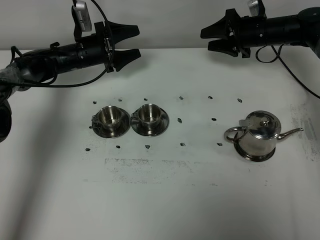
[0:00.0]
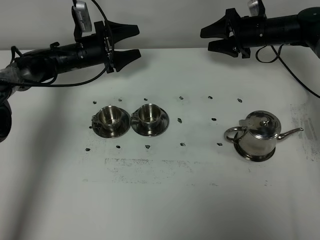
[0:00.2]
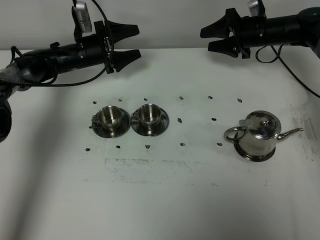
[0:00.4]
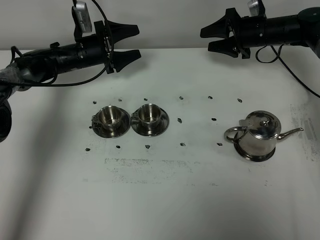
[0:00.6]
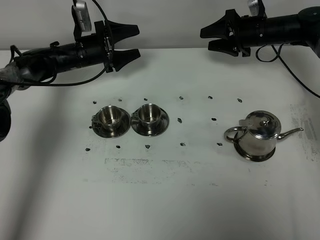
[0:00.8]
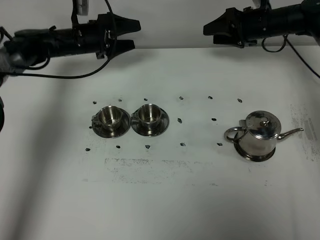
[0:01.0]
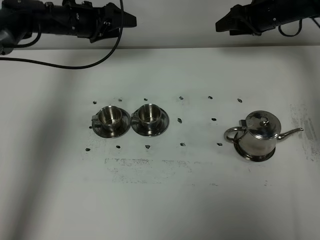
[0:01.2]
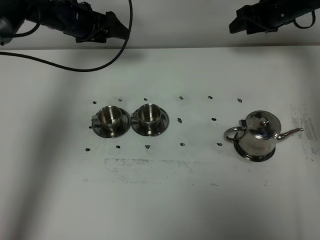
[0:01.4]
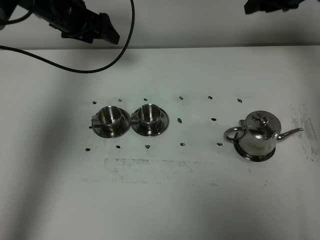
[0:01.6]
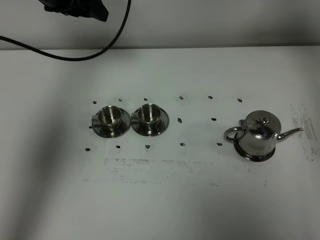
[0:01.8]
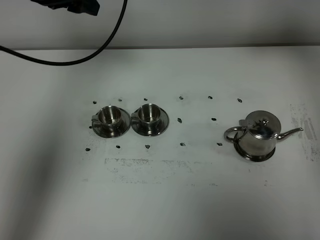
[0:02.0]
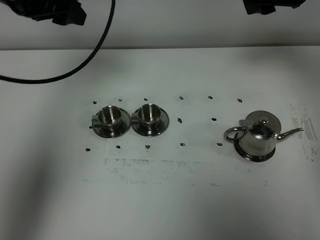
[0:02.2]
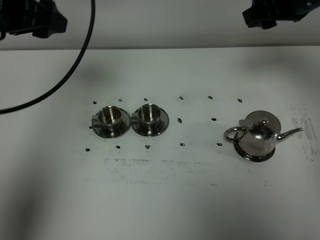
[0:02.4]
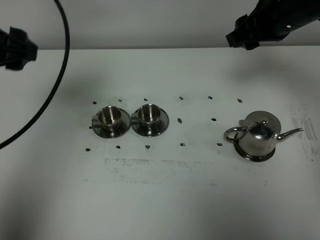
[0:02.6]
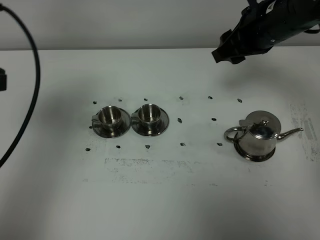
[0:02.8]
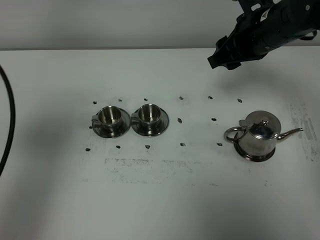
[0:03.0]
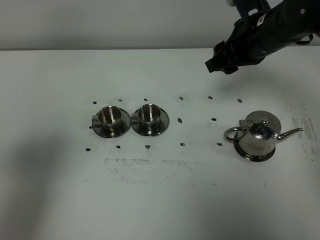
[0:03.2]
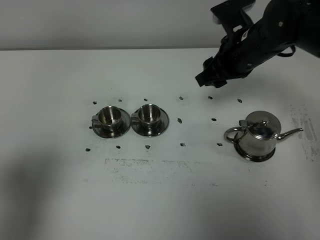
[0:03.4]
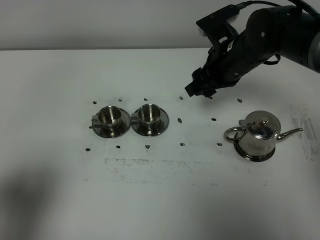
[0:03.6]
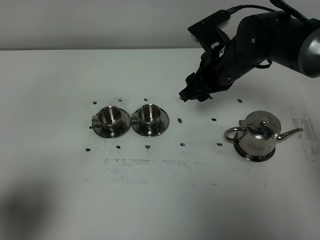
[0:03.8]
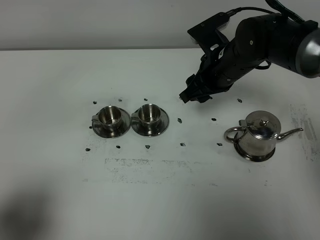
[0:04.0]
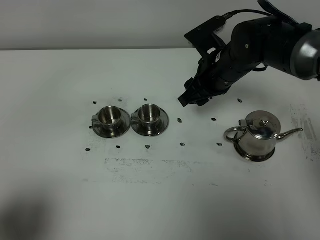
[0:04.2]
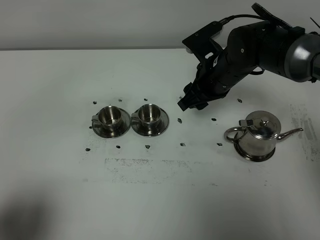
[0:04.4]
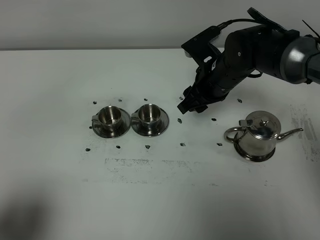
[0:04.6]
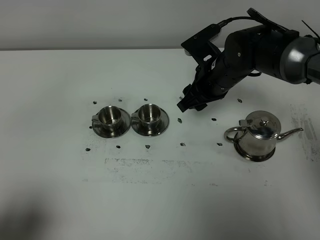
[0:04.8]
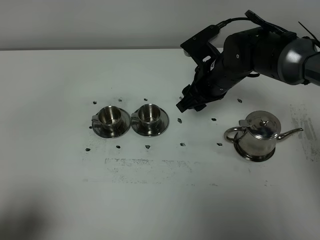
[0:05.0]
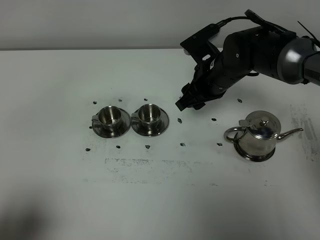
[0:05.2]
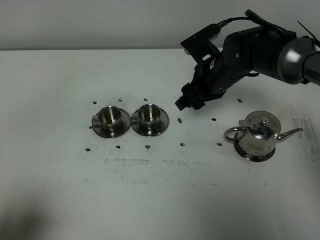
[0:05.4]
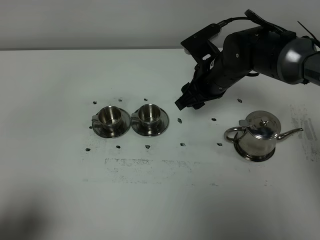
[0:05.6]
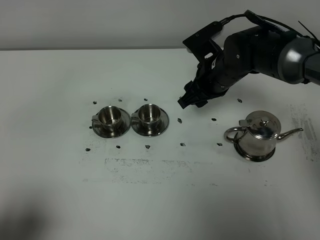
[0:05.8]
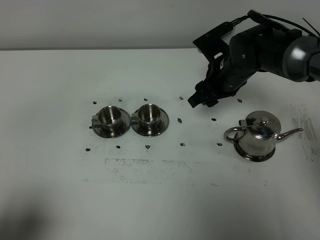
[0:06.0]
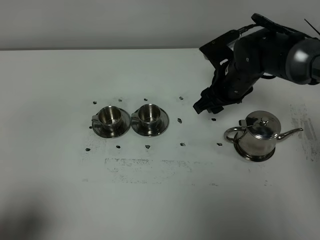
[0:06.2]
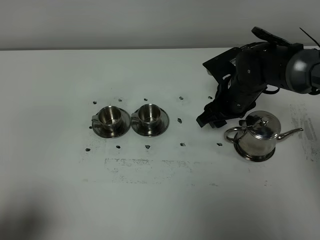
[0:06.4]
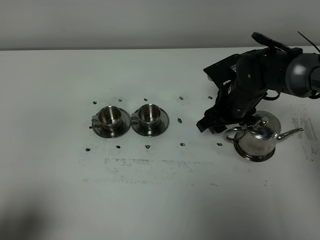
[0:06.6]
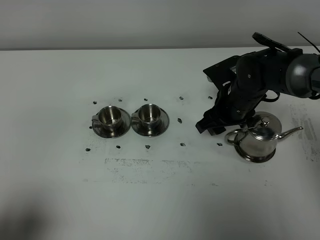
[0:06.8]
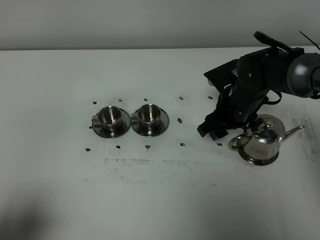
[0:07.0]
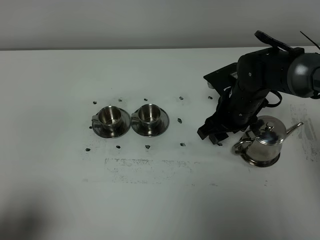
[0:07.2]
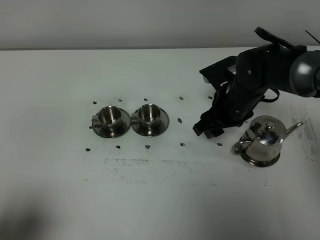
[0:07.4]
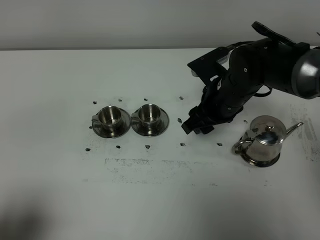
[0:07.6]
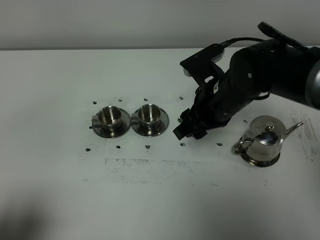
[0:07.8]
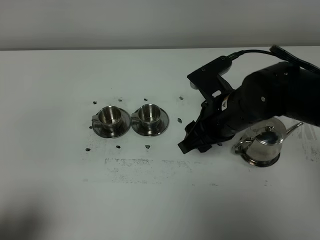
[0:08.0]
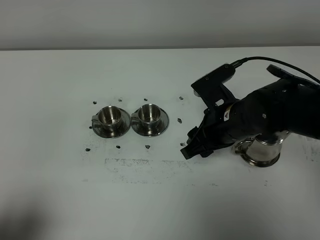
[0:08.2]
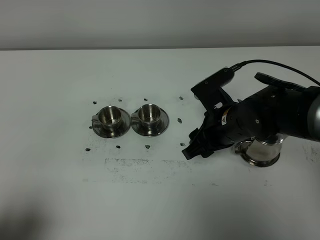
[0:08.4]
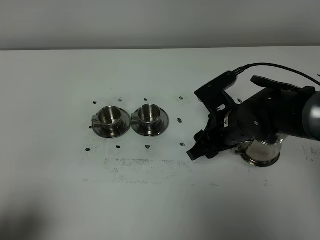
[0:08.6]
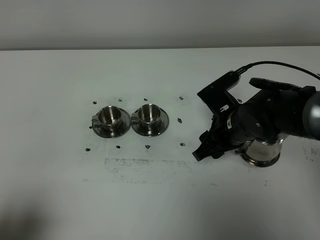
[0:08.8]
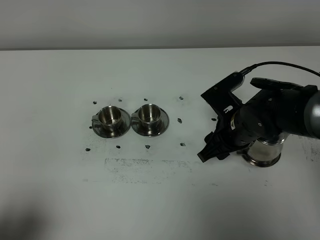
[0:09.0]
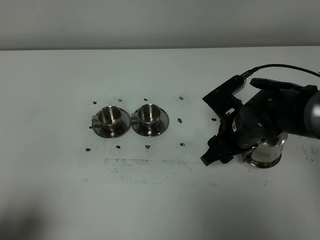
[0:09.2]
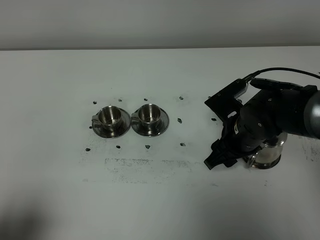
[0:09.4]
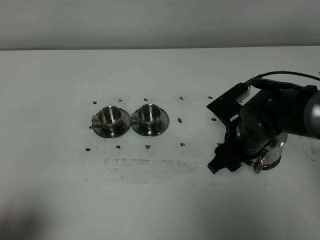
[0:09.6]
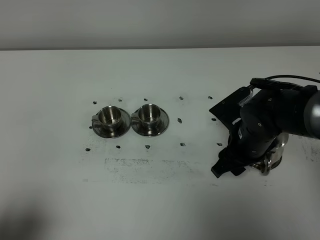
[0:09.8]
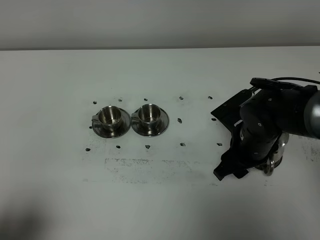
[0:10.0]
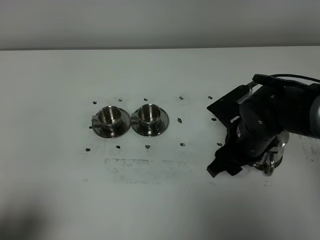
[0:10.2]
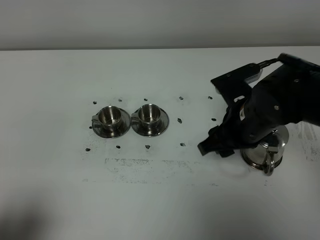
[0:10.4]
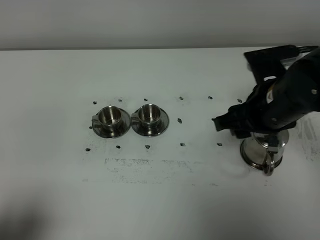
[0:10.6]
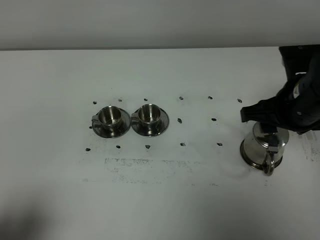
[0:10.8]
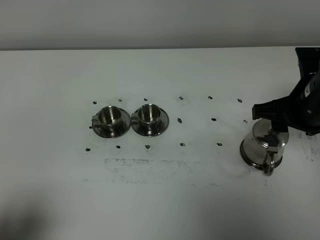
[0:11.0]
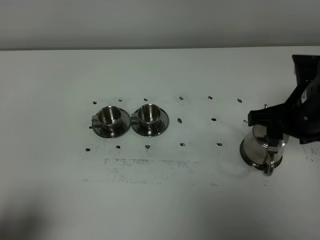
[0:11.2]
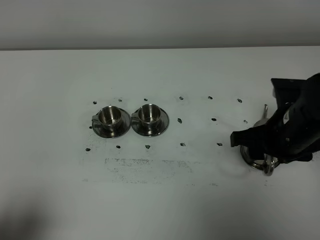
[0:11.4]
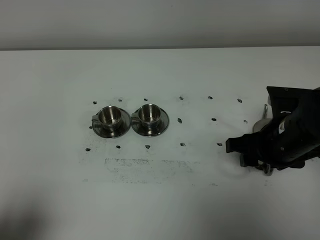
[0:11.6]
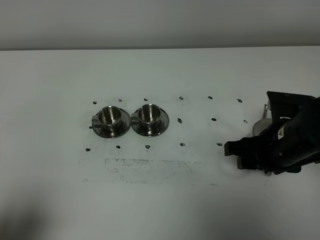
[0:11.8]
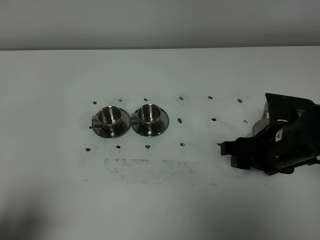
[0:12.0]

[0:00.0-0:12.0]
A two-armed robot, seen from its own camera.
Task of the whole recording: grasp the stainless steel teapot and pour the tea into the two stainless steel teacups one by one, put the stainless steel teapot back in its original place.
0:00.0 to 0:01.6: Both grippers move upward, some 15 cm.
0:01.6 to 0:03.0: The left gripper shifts some 35 cm backward. Meanwhile the right gripper travels backward and to the left by approximately 20 cm.
0:03.0 to 0:04.4: The left gripper moves backward and downward, approximately 15 cm. The right gripper is displaced downward and to the left by about 10 cm.
0:04.4 to 0:06.0: The grippers stay close to where they were, moving slightly.
0:06.0 to 0:07.6: The right gripper travels backward by some 5 cm.
0:07.6 to 0:09.0: The right gripper ends up some 5 cm from where it was.
0:09.0 to 0:10.4: The right gripper goes approximately 5 cm upward.
0:10.4 to 0:12.0: The right gripper changes place by approximately 5 cm.

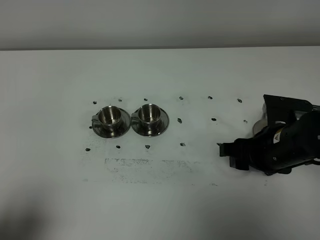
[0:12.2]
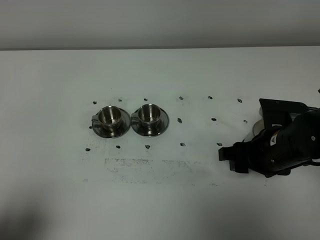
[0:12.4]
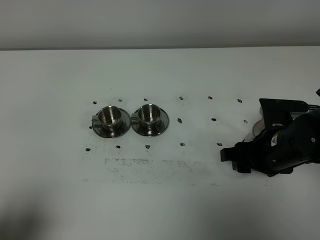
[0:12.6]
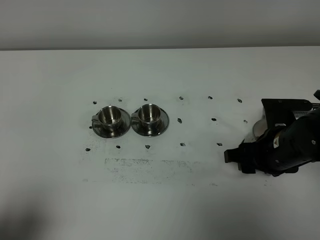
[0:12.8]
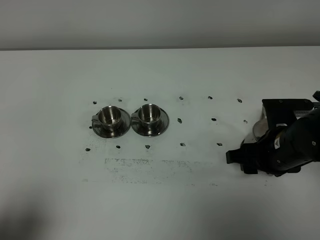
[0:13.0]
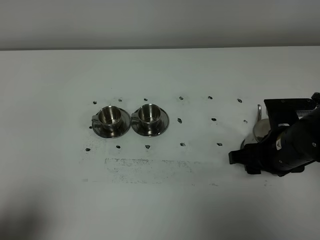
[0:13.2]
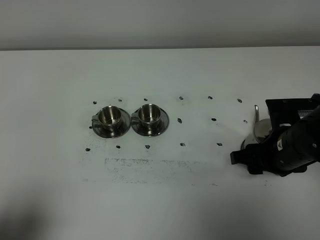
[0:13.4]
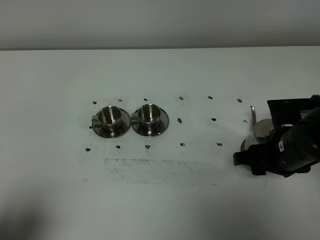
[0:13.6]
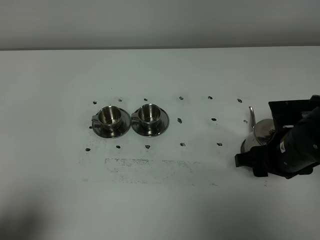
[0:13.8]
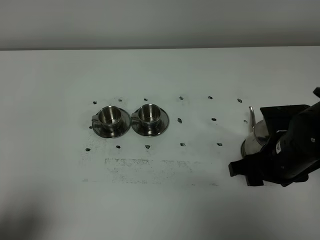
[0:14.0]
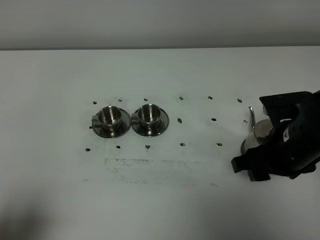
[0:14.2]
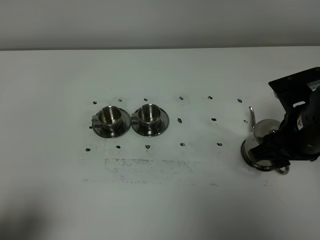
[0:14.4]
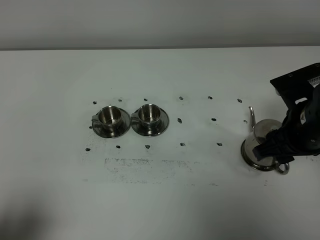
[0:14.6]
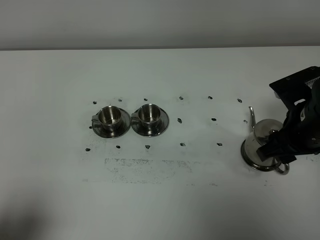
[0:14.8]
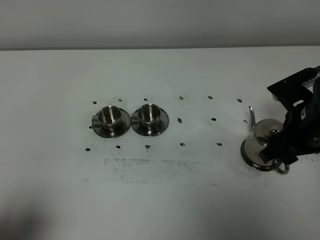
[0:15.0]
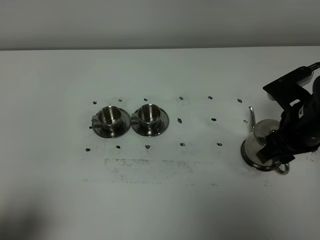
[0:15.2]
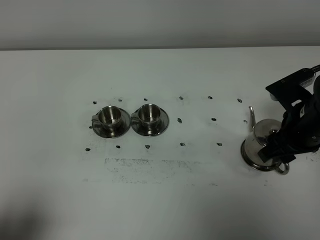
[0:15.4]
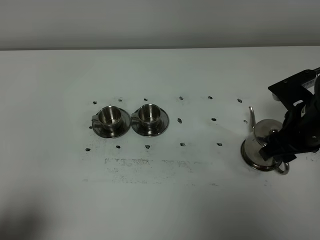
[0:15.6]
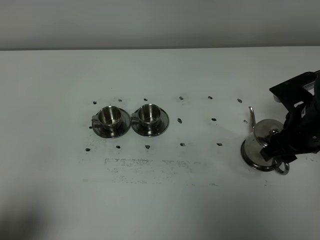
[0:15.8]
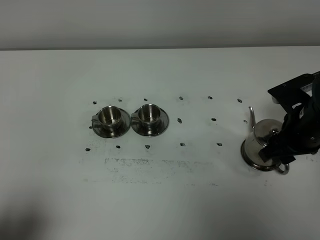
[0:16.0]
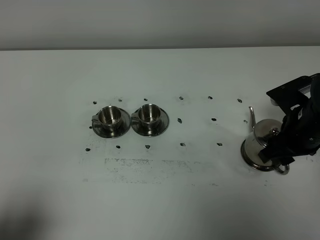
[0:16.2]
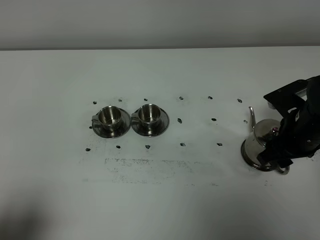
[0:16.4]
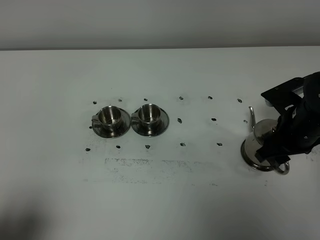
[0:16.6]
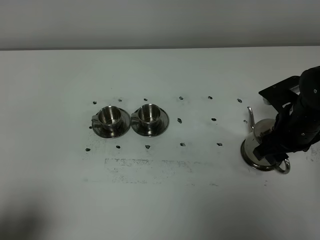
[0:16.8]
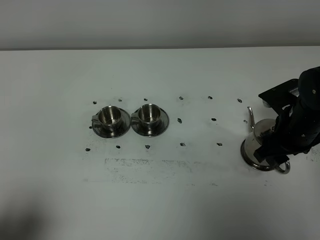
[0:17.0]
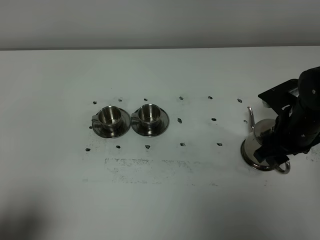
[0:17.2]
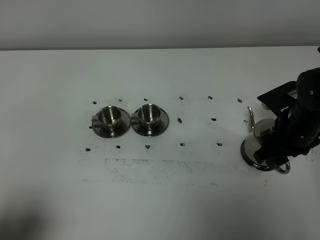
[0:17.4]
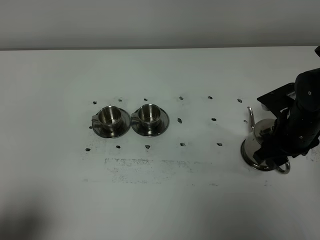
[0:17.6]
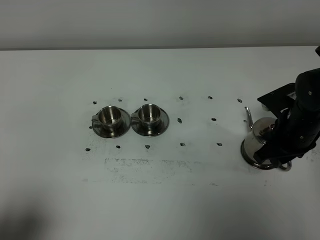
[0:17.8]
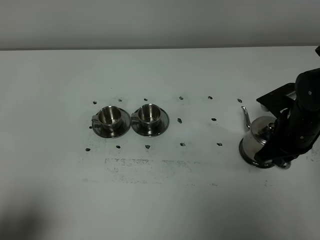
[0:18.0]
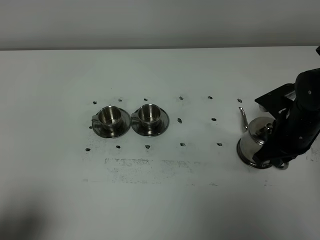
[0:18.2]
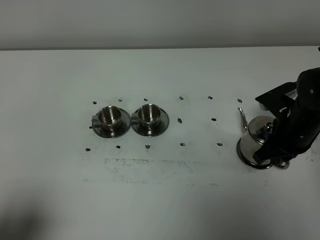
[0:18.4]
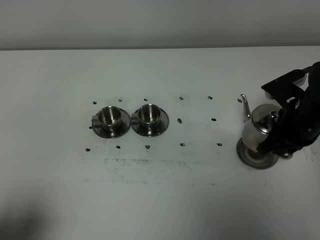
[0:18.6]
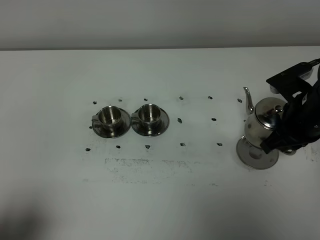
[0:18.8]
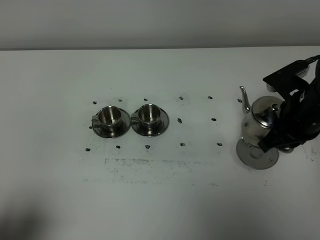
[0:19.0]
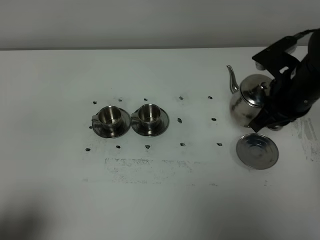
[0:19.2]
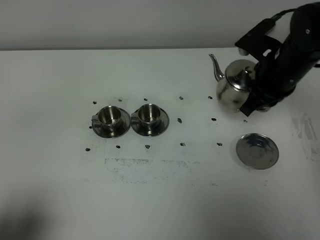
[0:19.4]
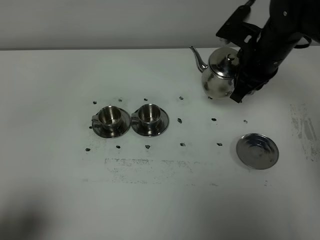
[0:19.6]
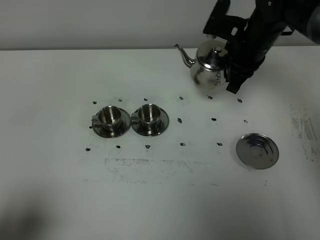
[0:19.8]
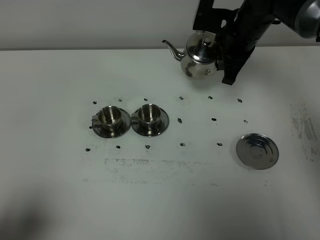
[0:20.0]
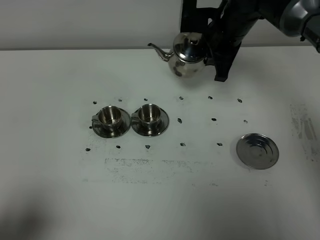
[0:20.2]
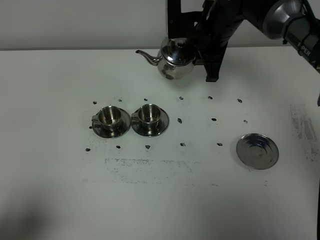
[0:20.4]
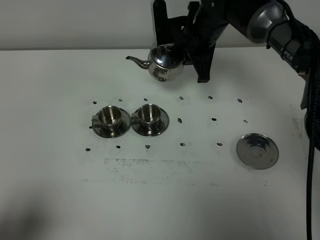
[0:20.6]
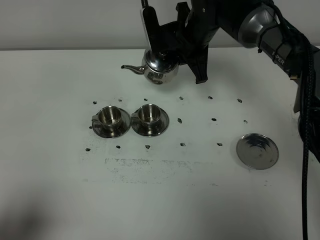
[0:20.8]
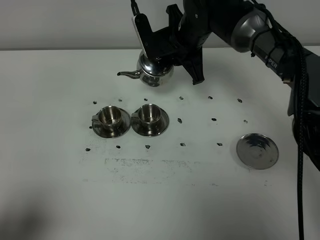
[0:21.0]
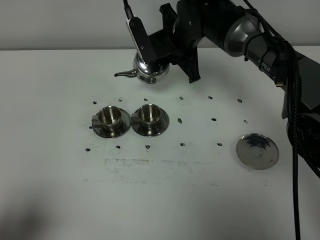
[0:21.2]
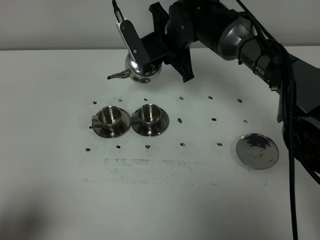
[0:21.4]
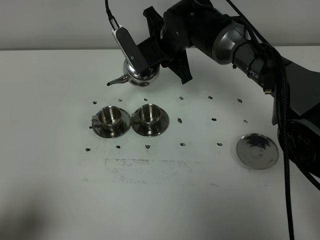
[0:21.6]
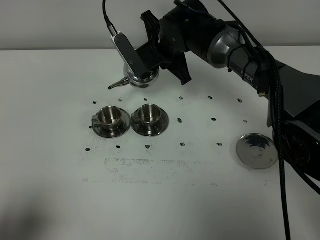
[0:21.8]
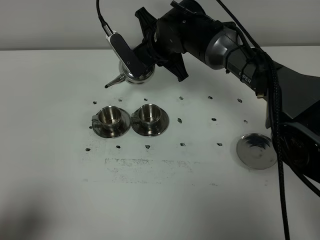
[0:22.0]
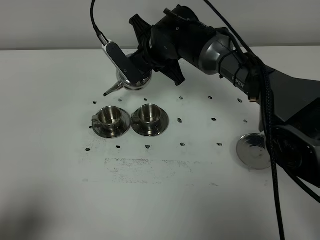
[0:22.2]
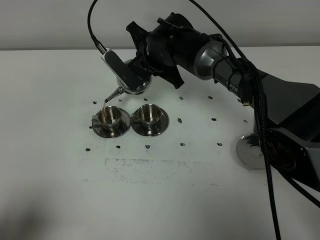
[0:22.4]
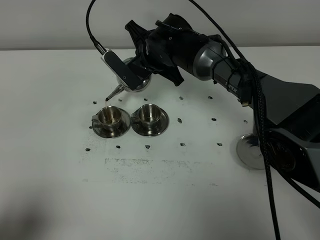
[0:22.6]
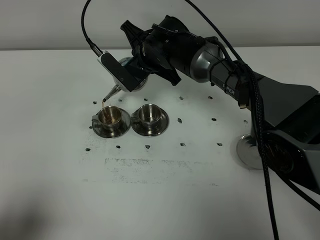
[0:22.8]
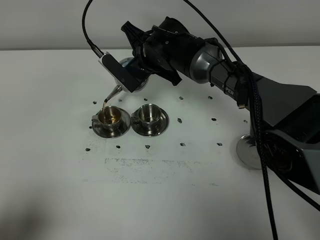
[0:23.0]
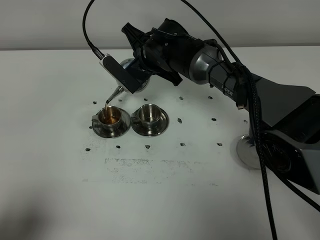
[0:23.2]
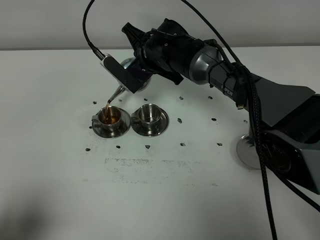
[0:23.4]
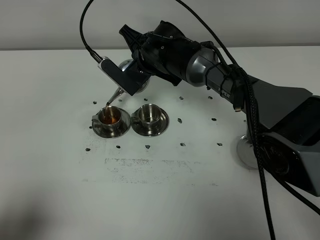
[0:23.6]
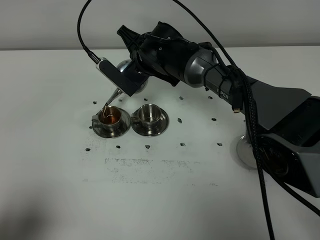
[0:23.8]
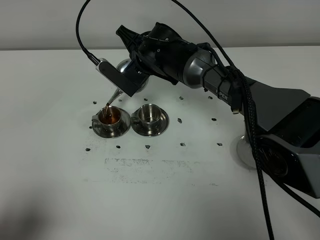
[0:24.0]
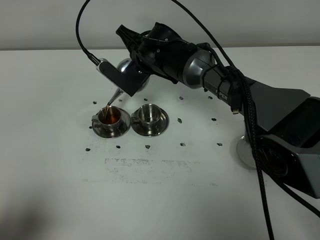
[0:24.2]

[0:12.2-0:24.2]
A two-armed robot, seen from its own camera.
Task of the whole recording: grasp the stainless steel teapot and pour the tea into the two stainless steel teacups one by one, put the stainless steel teapot back in its original place.
Step, 0:12.2 to 0:18.4: Pick up the teapot with the right gripper.
0:12.2 to 0:13.8: There are only small adjustments of the grippers.
0:13.8 to 0:15.2: The right gripper moves some 5 cm.
0:15.2 to 0:16.6: The right gripper changes place by roughly 5 cm.
0:16.6 to 0:18.2: The right gripper closes its fingers.
0:18.2 to 0:19.8: The right gripper travels forward, upward and to the left by roughly 15 cm.
0:19.8 to 0:21.2: The right gripper goes some 10 cm to the left.
0:21.2 to 0:22.6: The right gripper ends up some 5 cm from where it was.
0:22.6 to 0:24.2: There are only small adjustments of the grippers.
